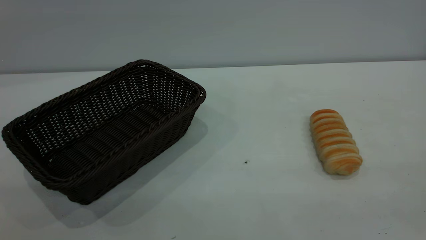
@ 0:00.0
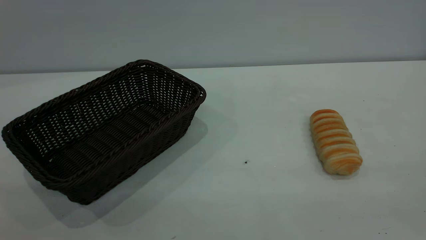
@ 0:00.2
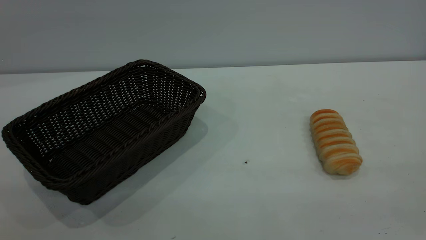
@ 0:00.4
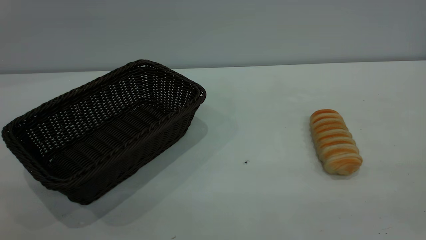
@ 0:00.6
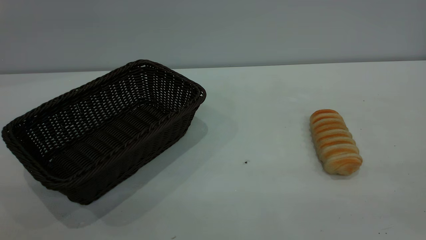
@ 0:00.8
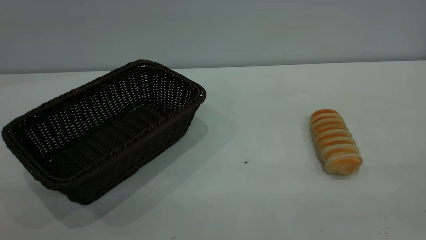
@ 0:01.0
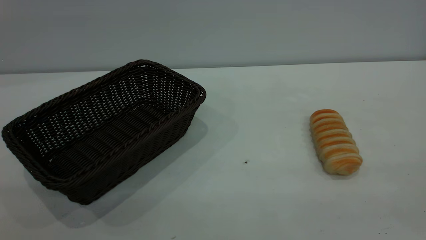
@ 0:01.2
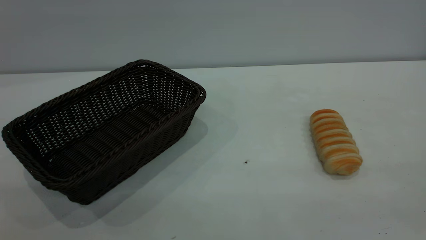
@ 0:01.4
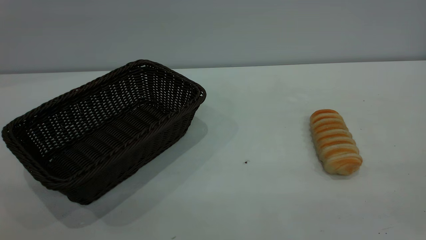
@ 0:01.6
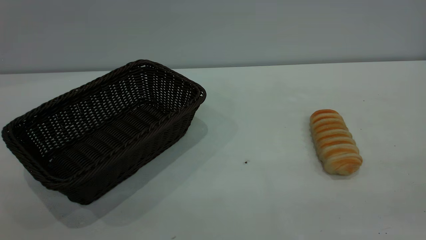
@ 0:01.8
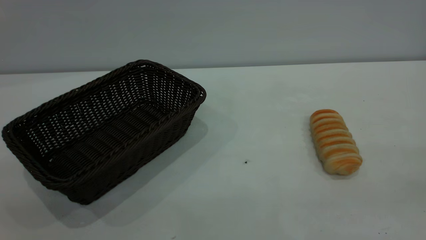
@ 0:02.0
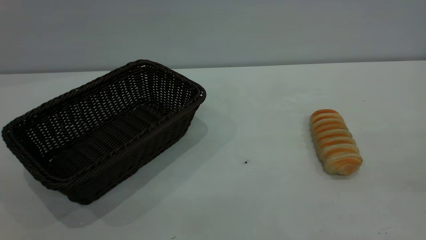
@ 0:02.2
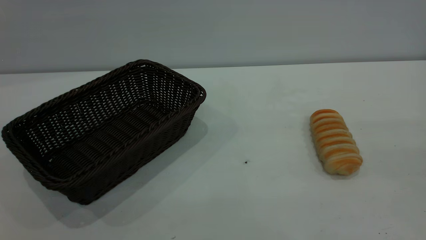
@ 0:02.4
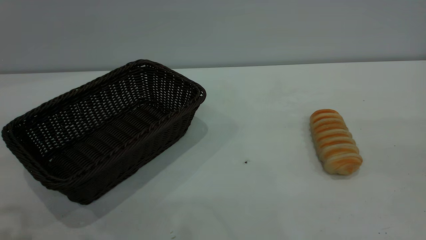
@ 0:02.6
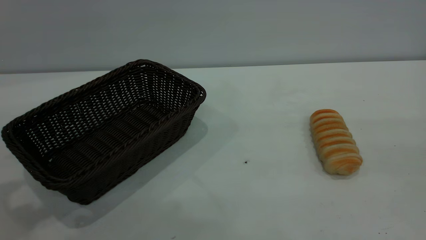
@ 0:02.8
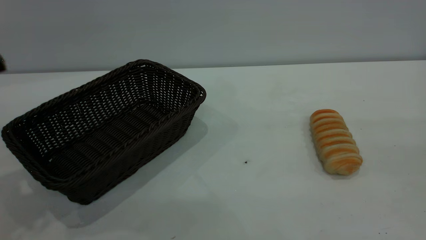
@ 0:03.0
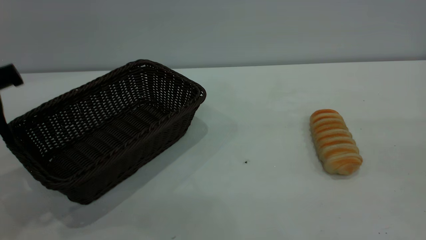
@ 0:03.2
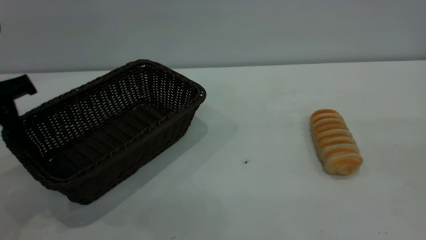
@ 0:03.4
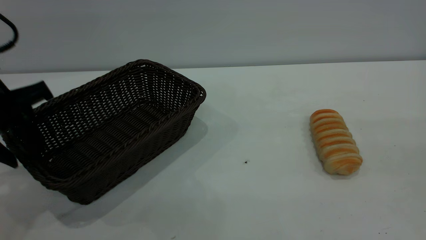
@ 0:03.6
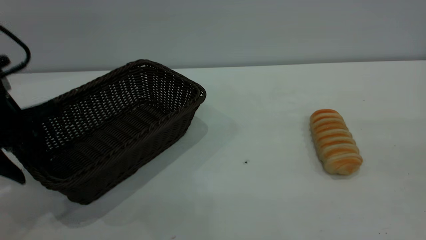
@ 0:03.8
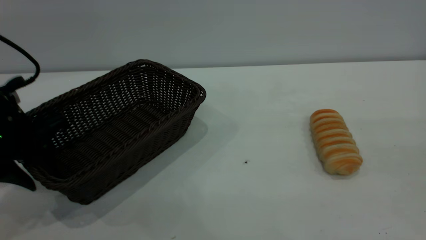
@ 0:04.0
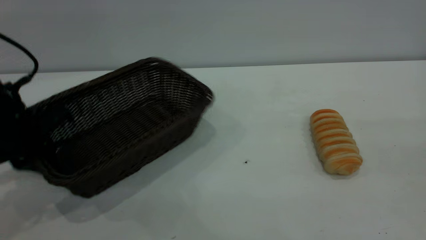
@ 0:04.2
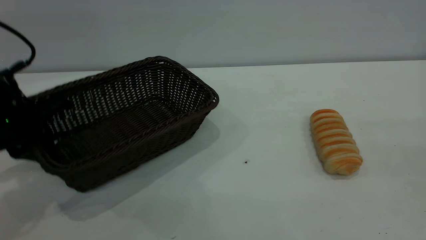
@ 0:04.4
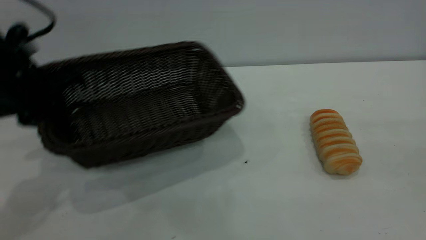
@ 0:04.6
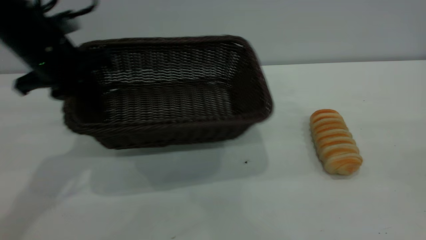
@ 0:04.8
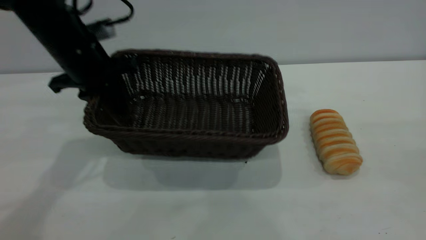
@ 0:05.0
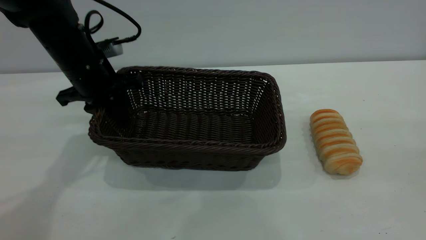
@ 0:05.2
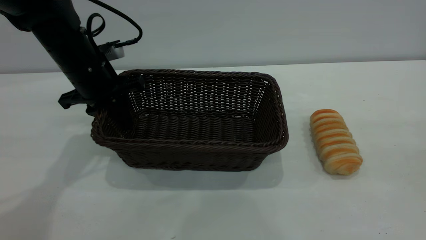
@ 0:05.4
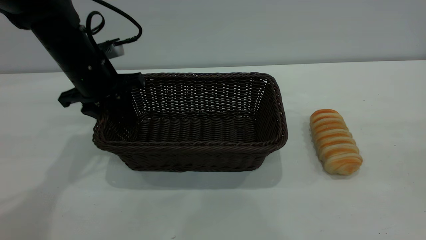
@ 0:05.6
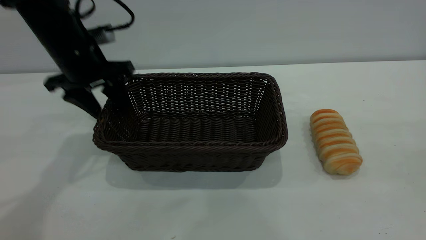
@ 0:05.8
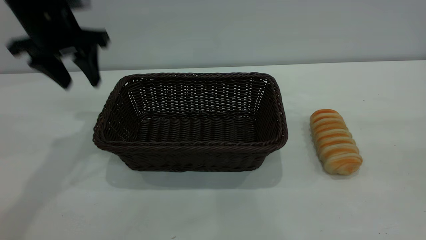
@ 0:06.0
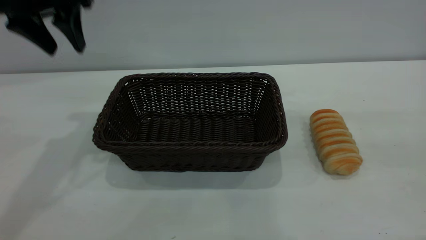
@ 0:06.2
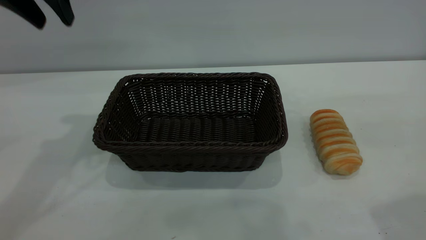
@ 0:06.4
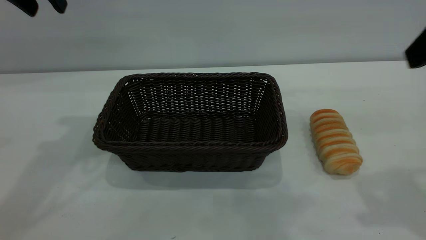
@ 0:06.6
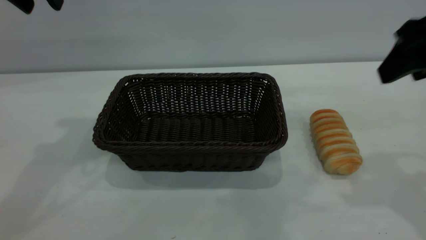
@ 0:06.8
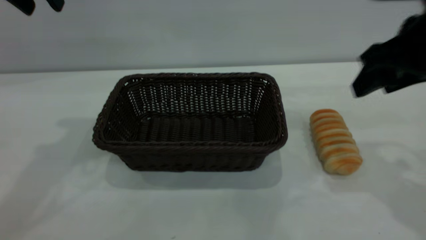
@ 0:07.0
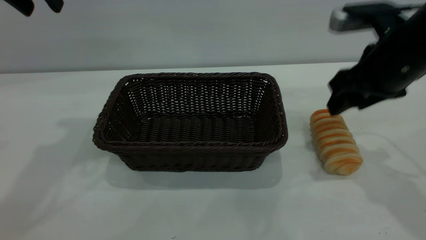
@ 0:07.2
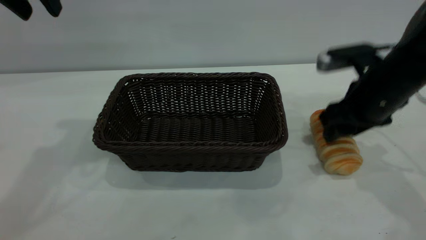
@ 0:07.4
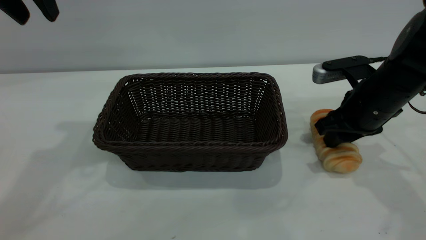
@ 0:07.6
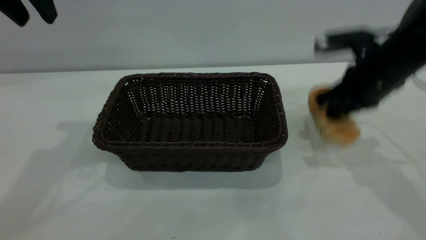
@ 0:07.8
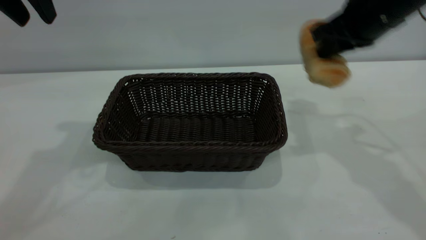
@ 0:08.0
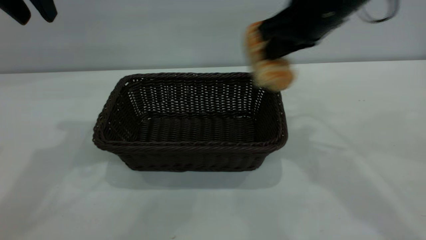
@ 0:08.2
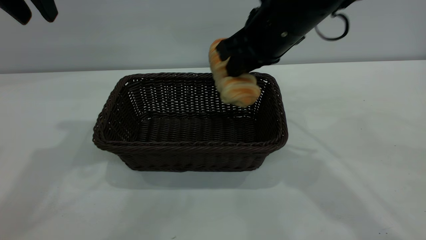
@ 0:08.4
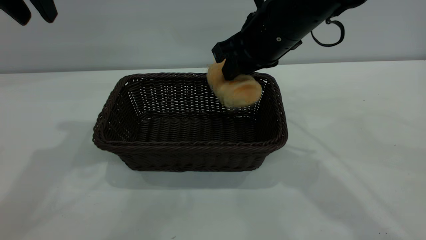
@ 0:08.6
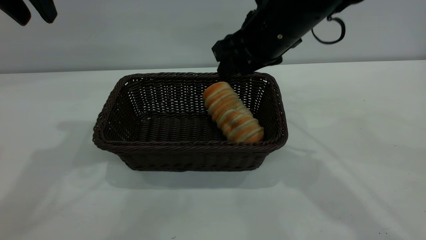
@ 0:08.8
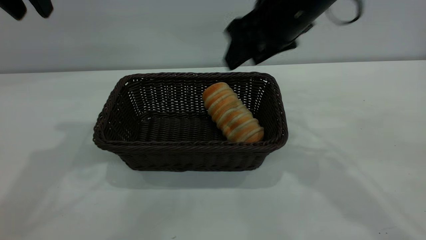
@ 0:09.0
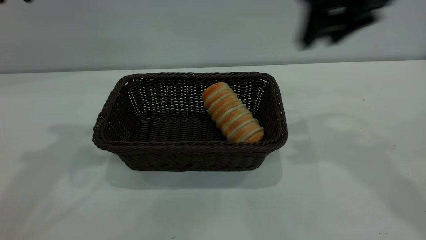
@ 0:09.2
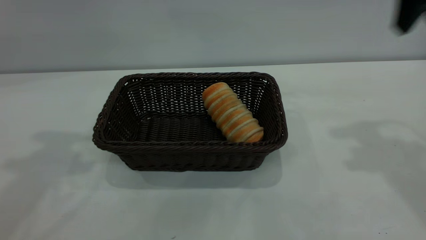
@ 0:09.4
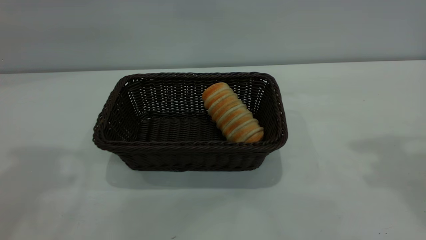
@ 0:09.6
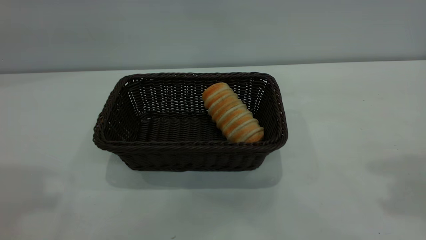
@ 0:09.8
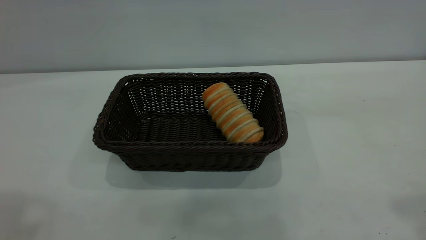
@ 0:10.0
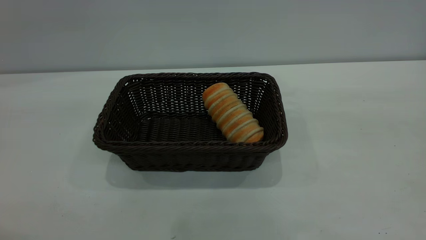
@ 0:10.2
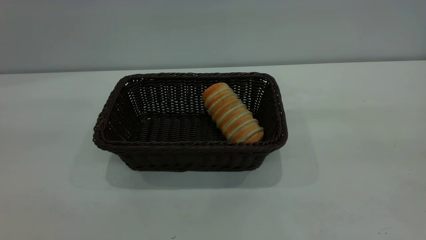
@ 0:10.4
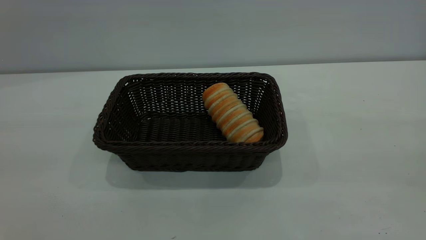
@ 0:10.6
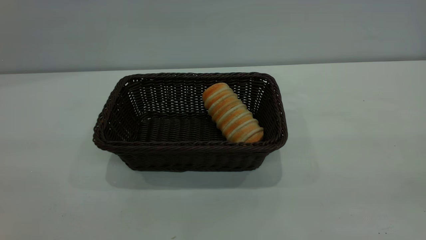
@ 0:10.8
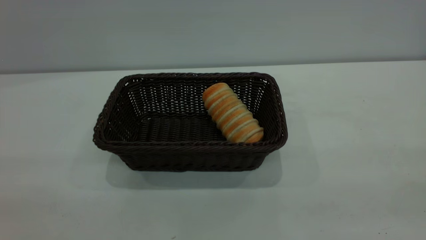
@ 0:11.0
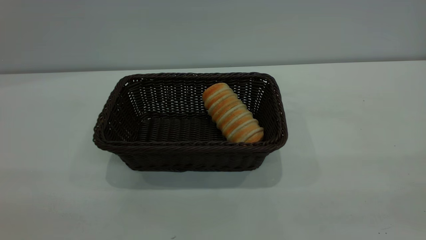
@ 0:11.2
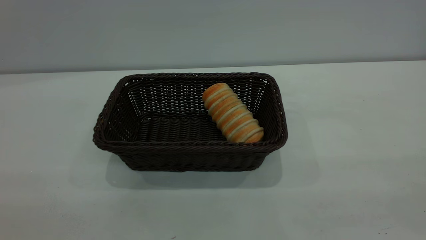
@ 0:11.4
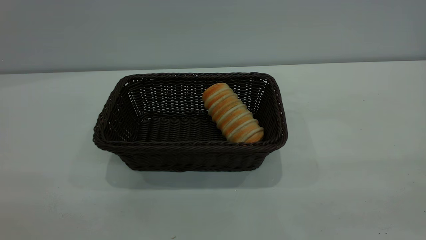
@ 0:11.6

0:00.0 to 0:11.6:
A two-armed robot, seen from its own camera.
Task of the whole recording: One hand grasps the black basket and places it in the middle of the table, while the other hand picks up the long bread and puts it into the black basket.
Step, 0:00.0 to 0:05.8: Move the basket to the center of view.
Step, 0:08.0 to 0:09.0: place the bread into the basket.
0:00.0 to 0:01.4: The two grippers keep their place.
0:02.8 to 0:04.4: The left gripper moves downward and forward, about 15 cm, and closes its fingers.
0:04.4 to 0:05.8: The left gripper is displaced forward and to the right by roughly 10 cm, and opens up.
0:05.8 to 0:07.2: The right gripper shifts some 30 cm forward and downward. The left gripper travels upward by some 15 cm.
0:07.2 to 0:08.8: The right gripper moves to the left and upward, some 15 cm, and closes and opens again.
0:08.8 to 0:10.2: The right gripper goes roughly 40 cm backward, to the right and upward; the left gripper travels backward and upward by some 25 cm.

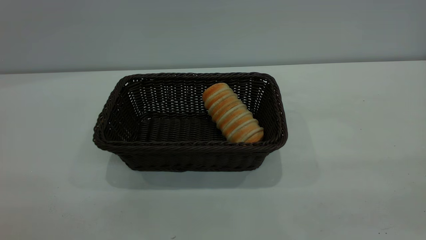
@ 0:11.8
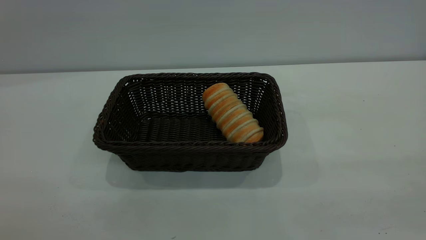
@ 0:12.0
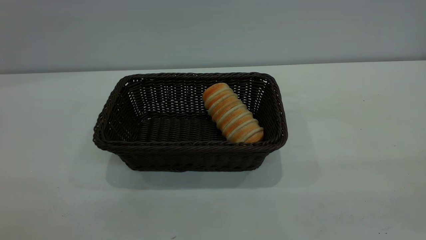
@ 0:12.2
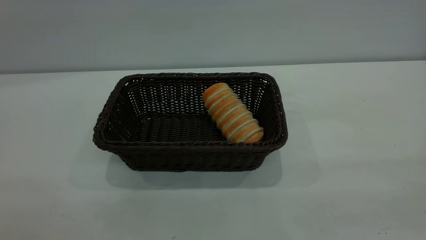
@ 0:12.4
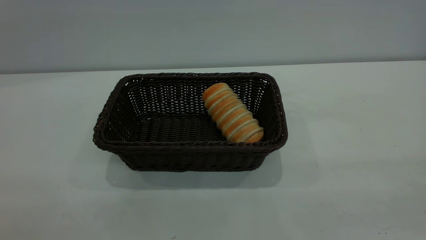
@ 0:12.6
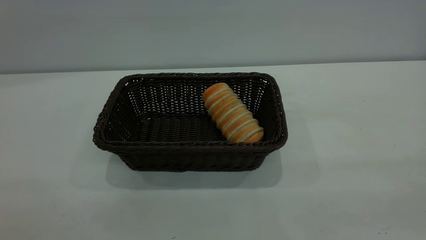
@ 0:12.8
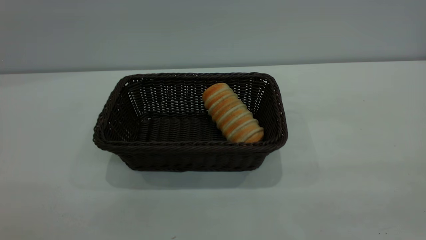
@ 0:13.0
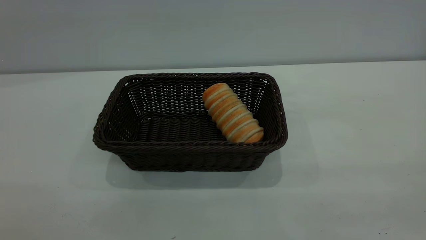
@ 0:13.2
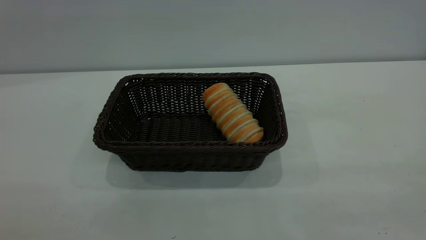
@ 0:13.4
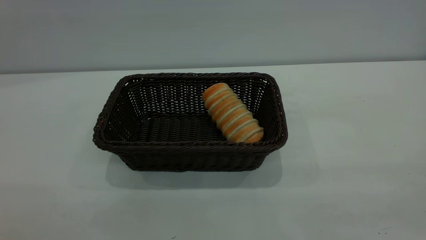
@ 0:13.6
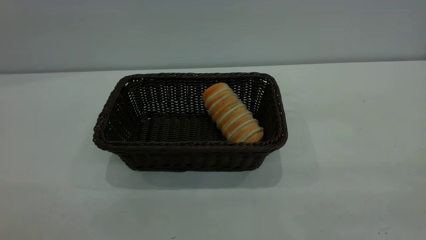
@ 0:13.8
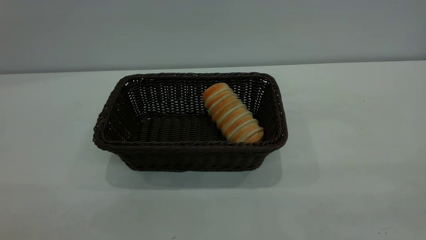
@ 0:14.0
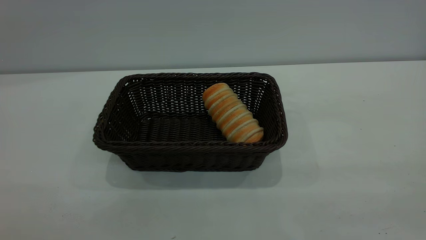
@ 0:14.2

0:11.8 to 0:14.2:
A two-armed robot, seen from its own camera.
Task of the whole recording: One hand grasps the black basket and places it in the middle of the table, while the other hand picks up the long bread and puts it into the black basket.
0:13.0 to 0:14.2: Both grippers stay put.
